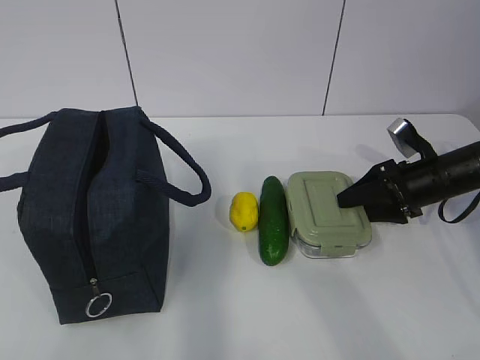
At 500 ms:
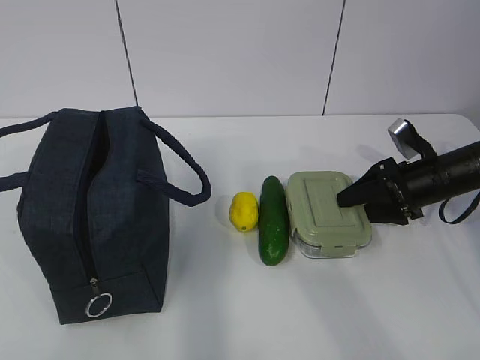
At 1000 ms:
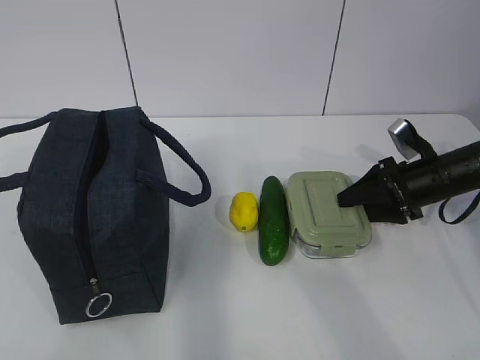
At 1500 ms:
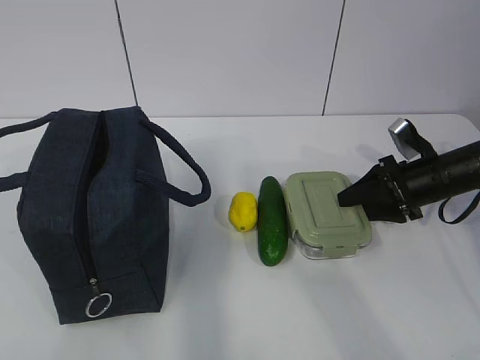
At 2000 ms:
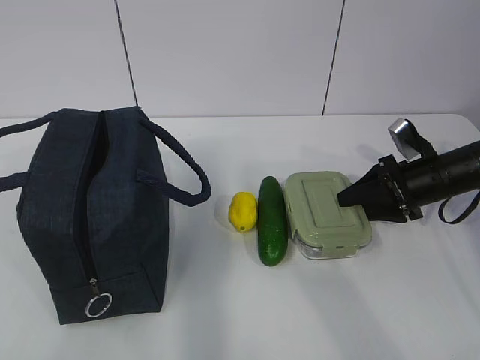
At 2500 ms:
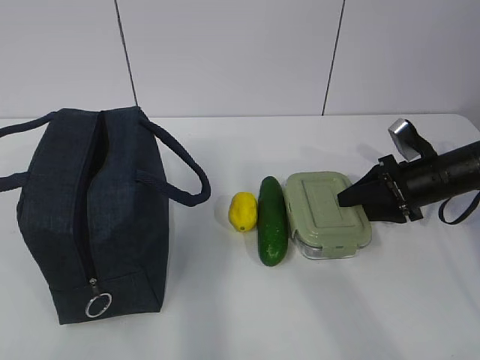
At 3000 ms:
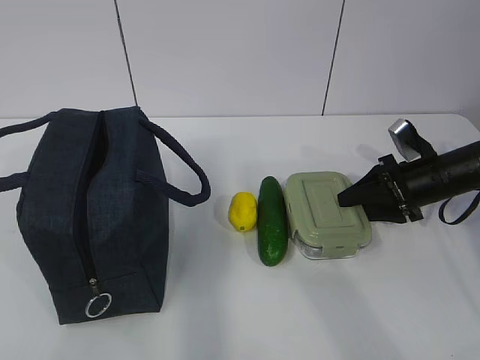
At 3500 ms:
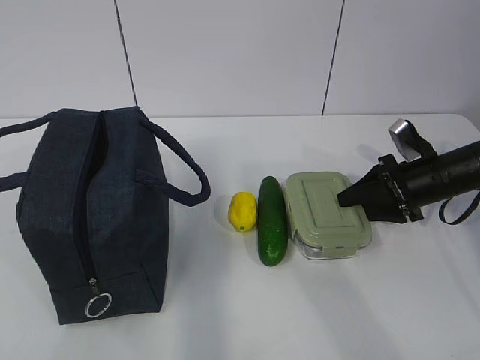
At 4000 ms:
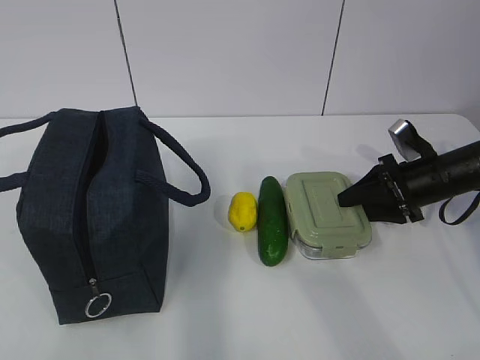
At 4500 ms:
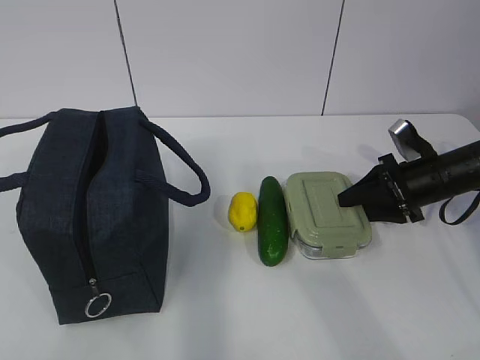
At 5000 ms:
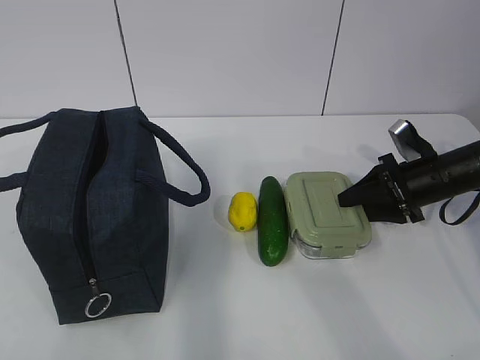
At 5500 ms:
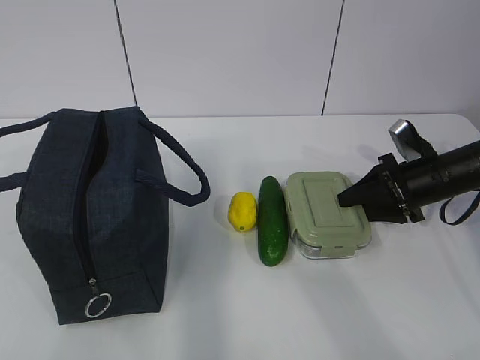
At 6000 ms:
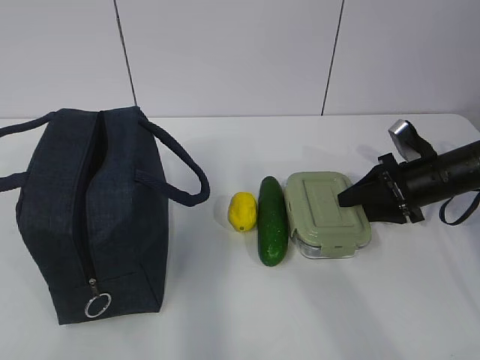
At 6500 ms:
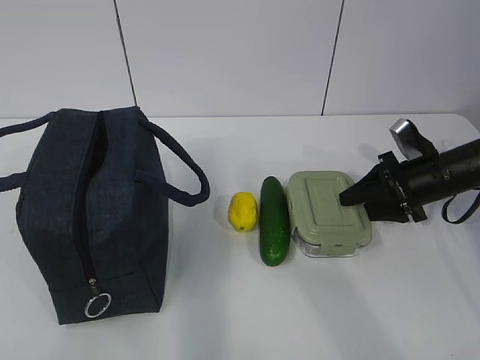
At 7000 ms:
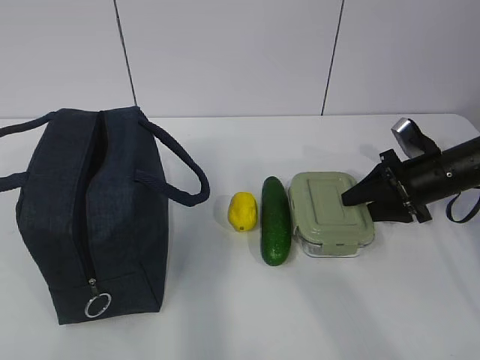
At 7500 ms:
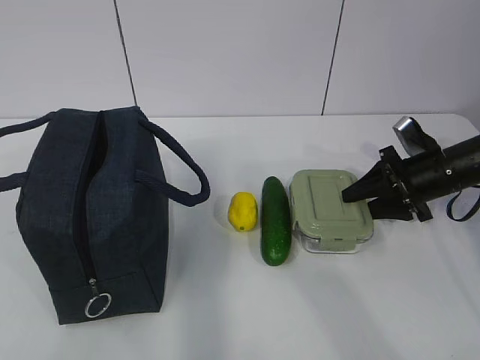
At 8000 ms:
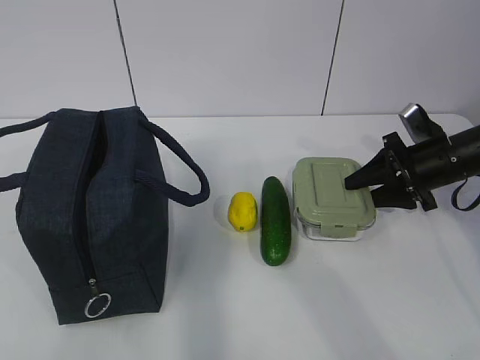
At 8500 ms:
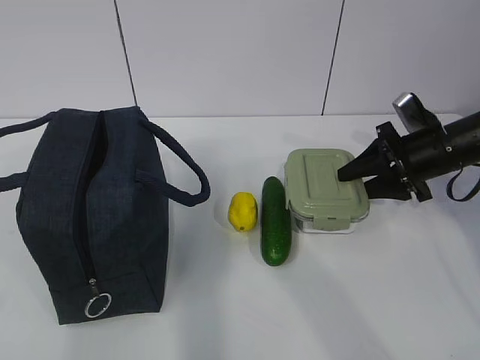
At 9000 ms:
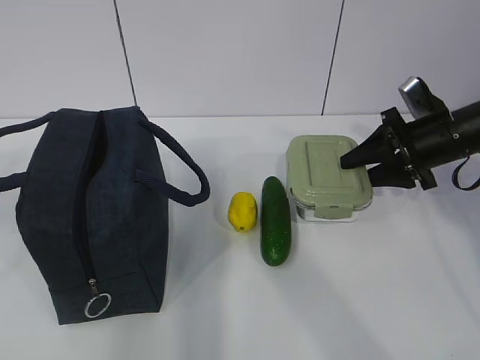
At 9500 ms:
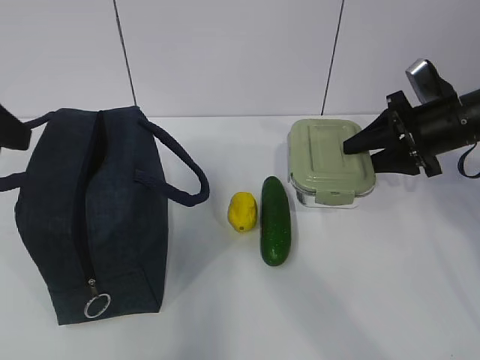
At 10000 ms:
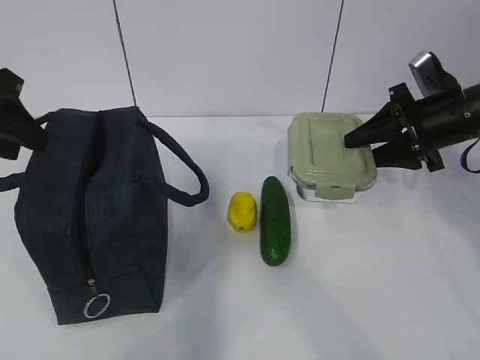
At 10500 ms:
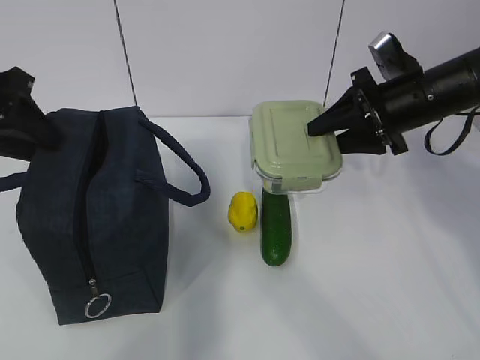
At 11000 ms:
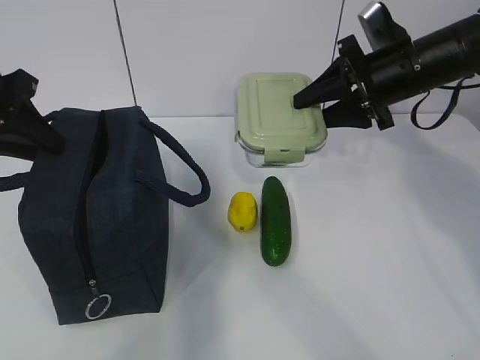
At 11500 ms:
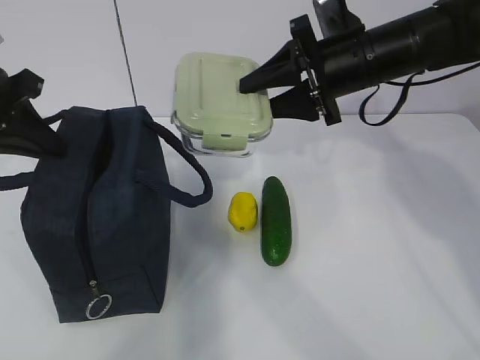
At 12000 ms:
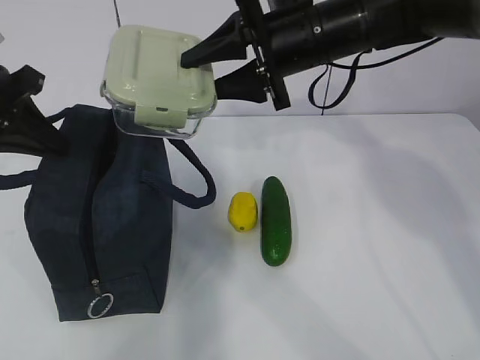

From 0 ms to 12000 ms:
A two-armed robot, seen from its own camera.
Step, from 4500 ms to 8500 ms: Grab the lunch bag with your left hand.
Step, from 9000 ms to 10500 ms: Place it into the bag with your right hand.
From 0 ms to 2000 ms: Both grippers stay put.
From 2000 ms to 6000 ms: Neither gripper changes place.
From 6000 ms to 8000 ms: There are only small adjustments of the grippers.
From 8000 ms to 10000 ms: The left gripper travels forward by some 30 cm; the right gripper travels upward by roughly 5 cm.
From 10000 ms to 12000 ms: The left gripper closes. Meanwhile the right gripper moves to the left and upward, approximately 20 cm.

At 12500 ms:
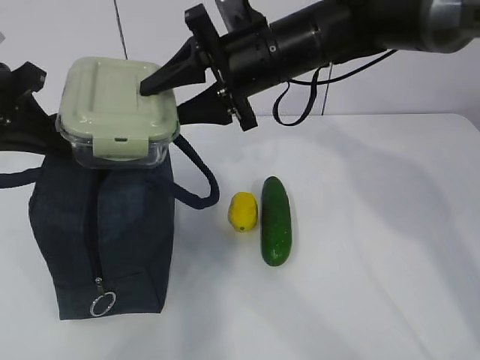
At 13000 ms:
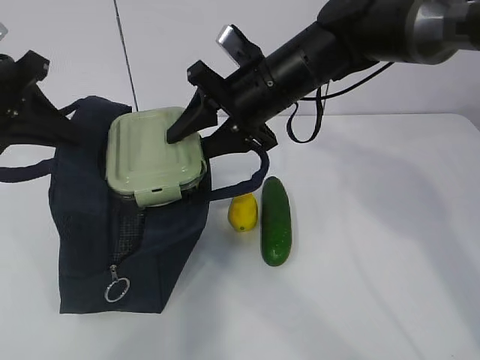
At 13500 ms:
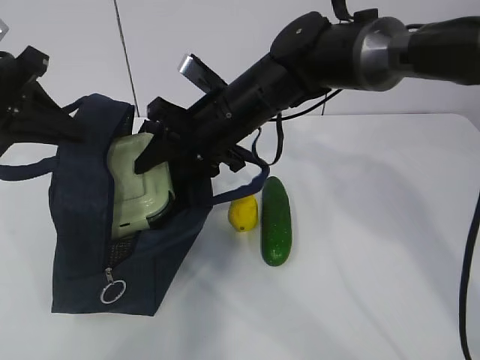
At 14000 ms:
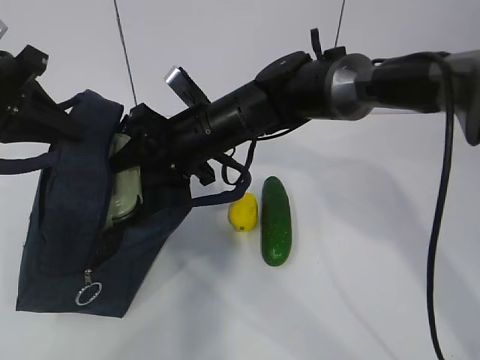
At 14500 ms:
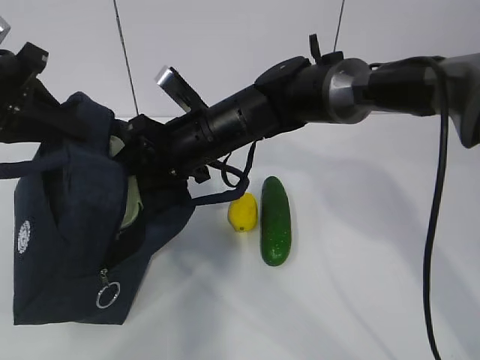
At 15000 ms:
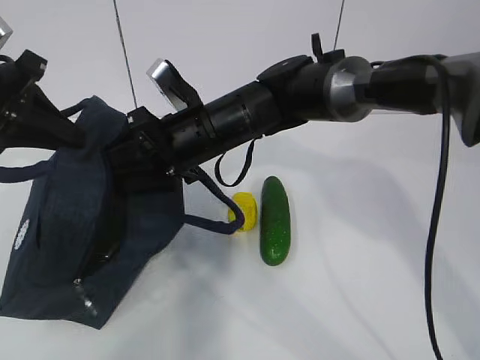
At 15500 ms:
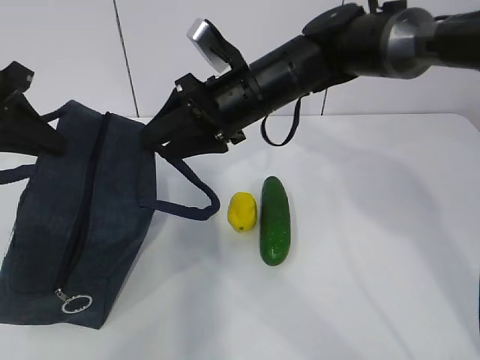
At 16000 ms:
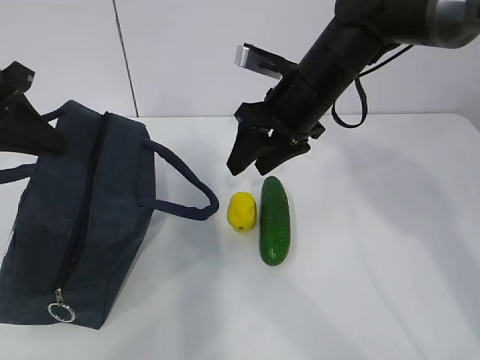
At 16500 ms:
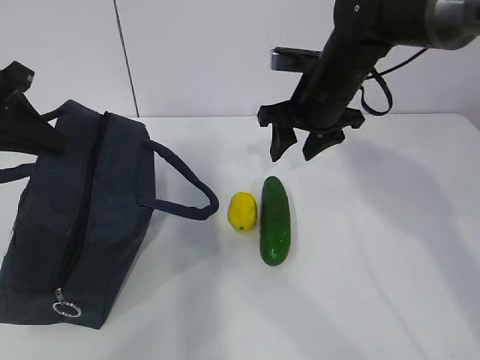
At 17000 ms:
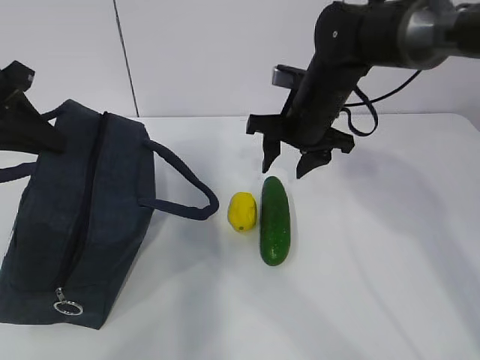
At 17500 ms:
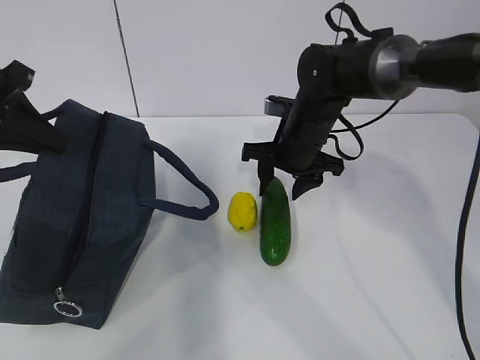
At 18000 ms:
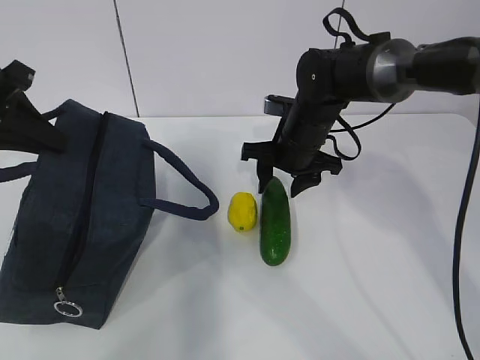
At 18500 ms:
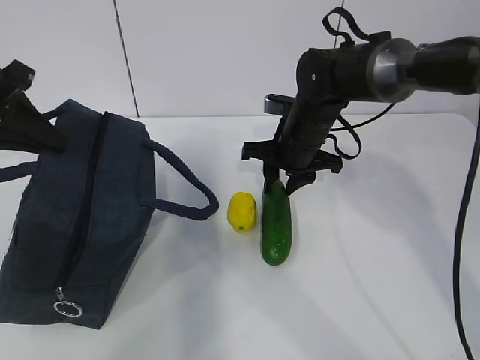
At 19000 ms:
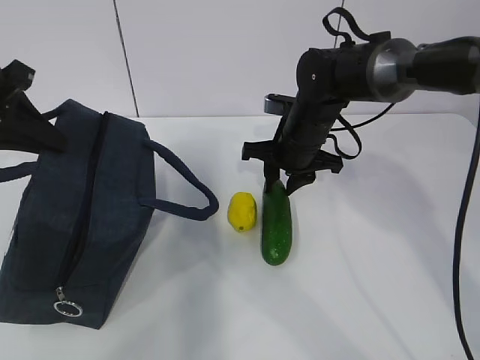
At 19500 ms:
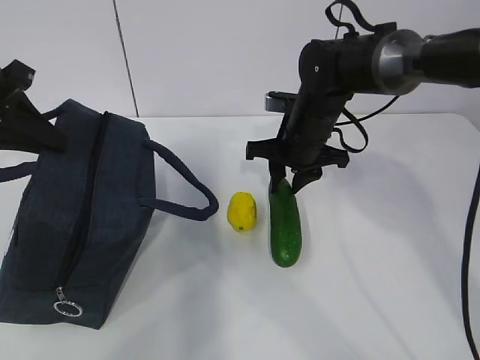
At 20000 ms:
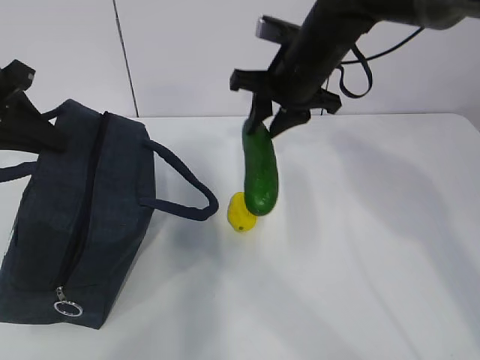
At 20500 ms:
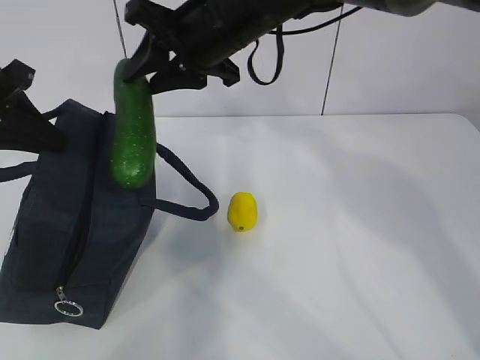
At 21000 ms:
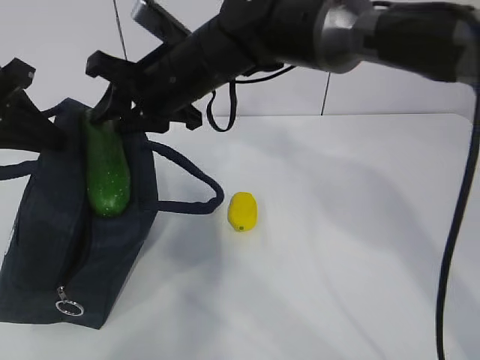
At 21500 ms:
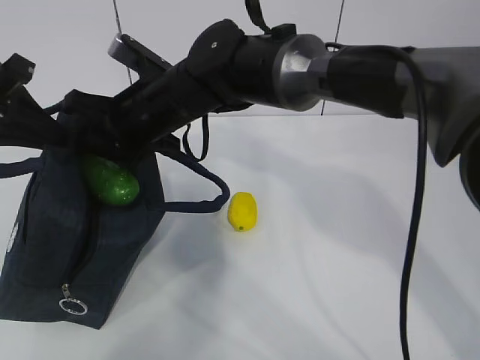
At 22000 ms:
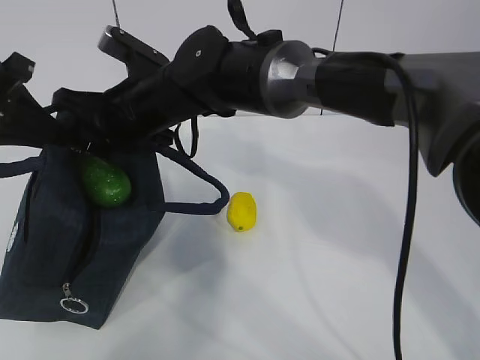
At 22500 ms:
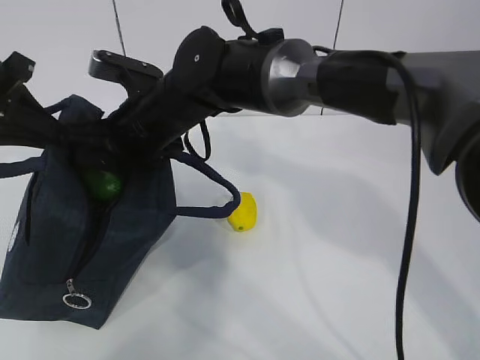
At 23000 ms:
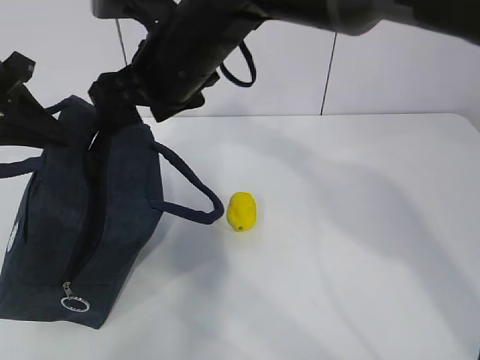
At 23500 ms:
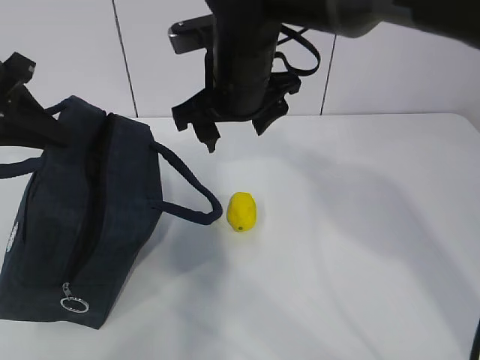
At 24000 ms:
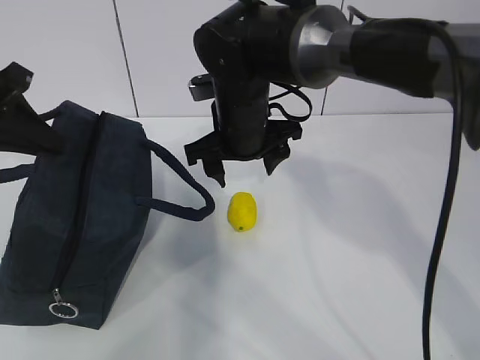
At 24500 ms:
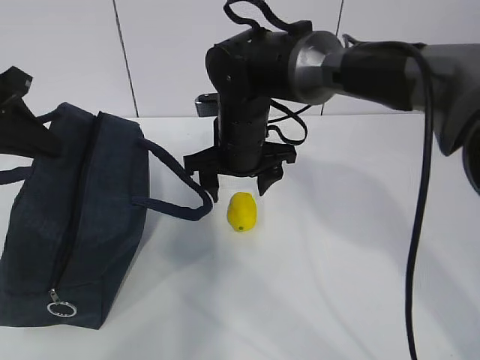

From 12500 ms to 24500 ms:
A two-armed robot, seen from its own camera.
Step, from 14500 ms to 17000 ms: Place it into the bag with your right hand.
Step, from 17500 ms to 19500 ms: Grab the lemon with your right hand.
From 12500 ms to 14500 ms: The right gripper goes approximately 10 cm downward and to the left.
From 14500 ms to 16500 ms: The right gripper is displaced to the right by some 15 cm.
From 16500 ms to 18500 ms: The right gripper moves downward, about 10 cm.
From 18500 ms to 20500 ms: The right gripper heads upward and to the left, covering roughly 20 cm.
From 20500 ms to 22500 ms: The right gripper moves downward and to the left, some 10 cm, and opens.
From 22500 ms to 24500 ms: The right gripper is displaced to the right by some 10 cm, and moves roughly 10 cm upward and comes back.

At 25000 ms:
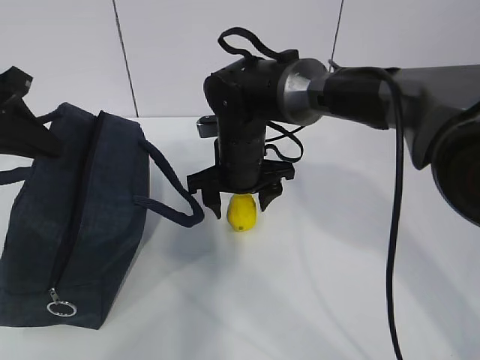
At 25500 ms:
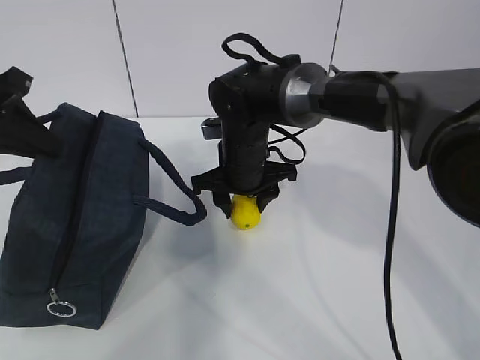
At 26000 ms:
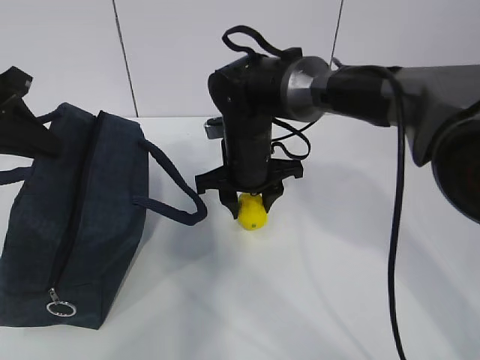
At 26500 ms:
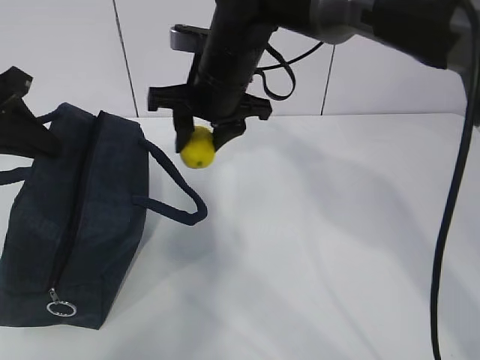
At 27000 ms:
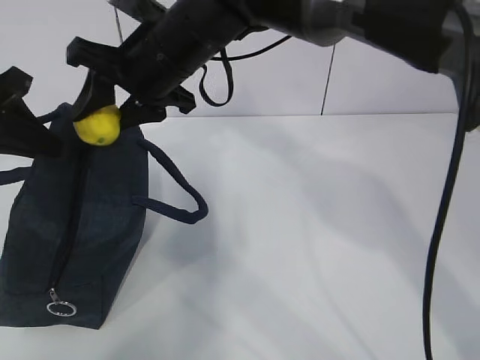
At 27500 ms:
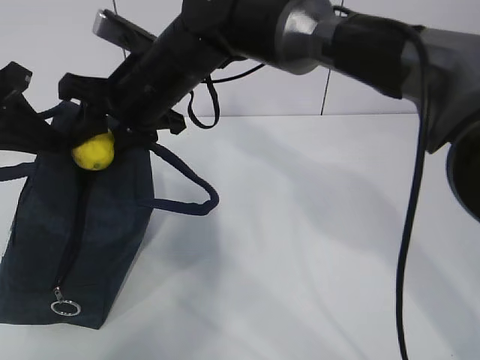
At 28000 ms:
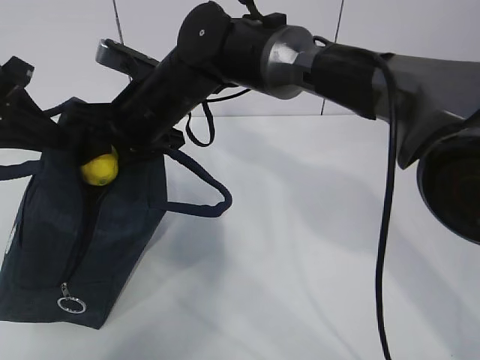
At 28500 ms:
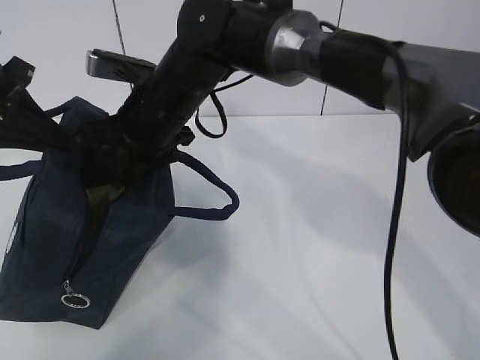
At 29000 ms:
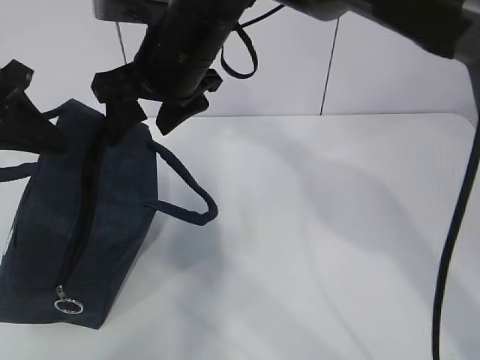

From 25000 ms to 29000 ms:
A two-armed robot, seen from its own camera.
Step, from 25500 ms to 29000 ms: Move the lunch bag to the right.
From 25000 ms to 27000 ms: The right gripper moves upward and to the left, about 15 cm, and closes up.
From 27000 ms to 29000 ms: The right gripper opens its fingers.
